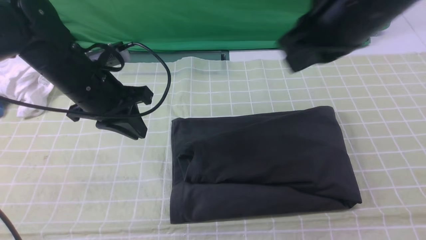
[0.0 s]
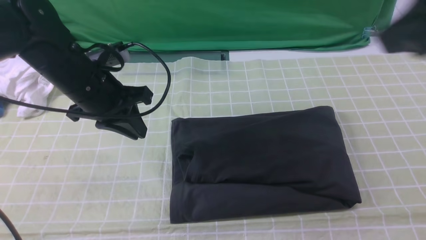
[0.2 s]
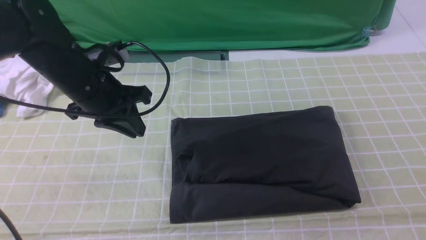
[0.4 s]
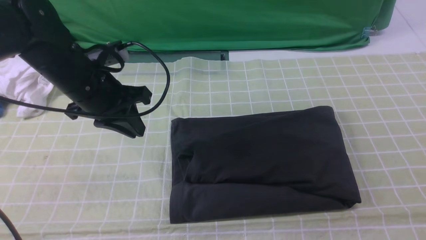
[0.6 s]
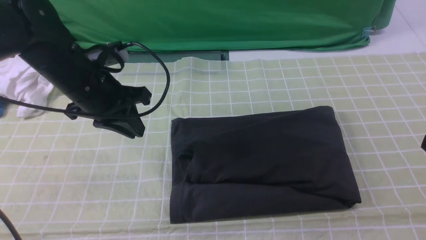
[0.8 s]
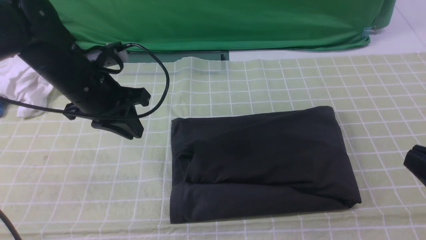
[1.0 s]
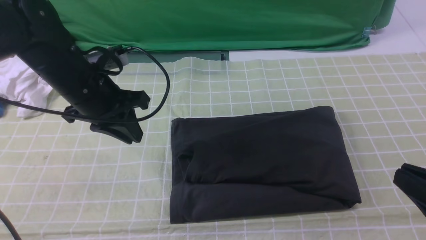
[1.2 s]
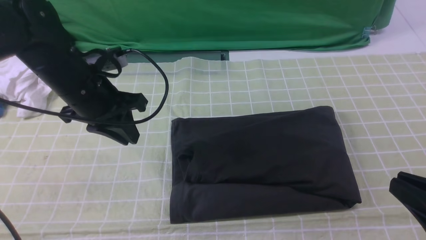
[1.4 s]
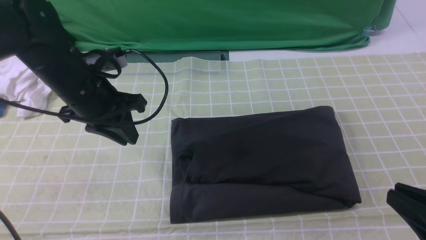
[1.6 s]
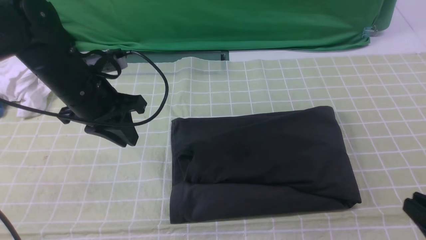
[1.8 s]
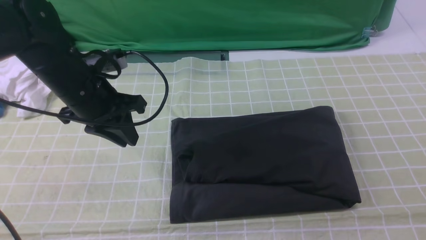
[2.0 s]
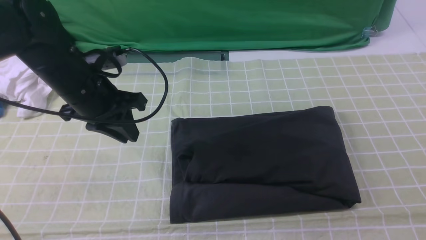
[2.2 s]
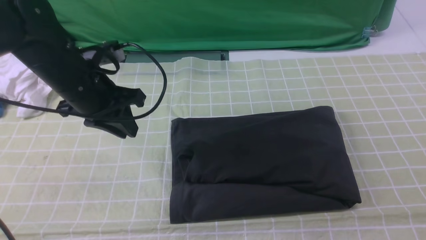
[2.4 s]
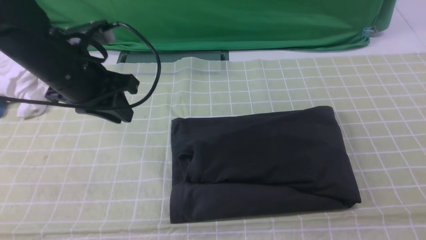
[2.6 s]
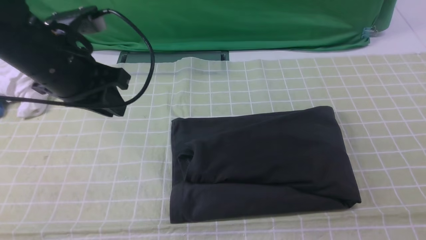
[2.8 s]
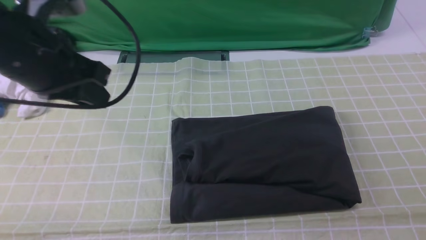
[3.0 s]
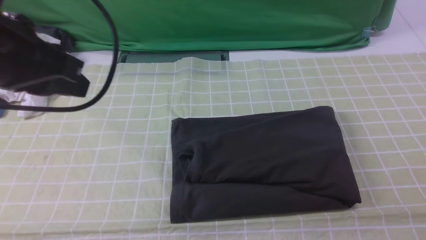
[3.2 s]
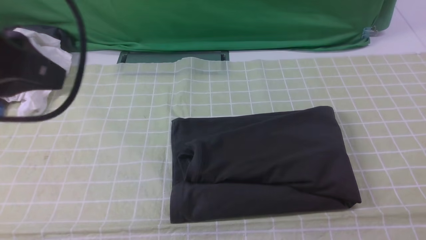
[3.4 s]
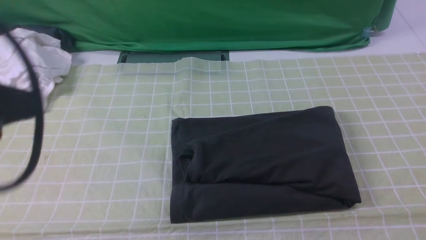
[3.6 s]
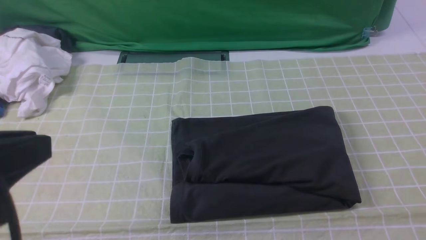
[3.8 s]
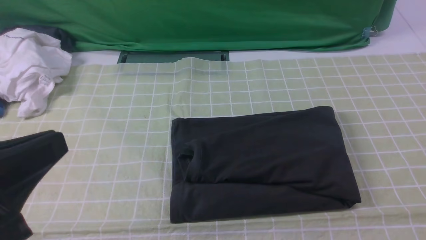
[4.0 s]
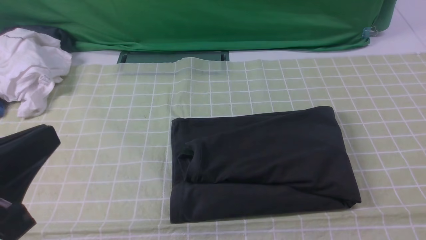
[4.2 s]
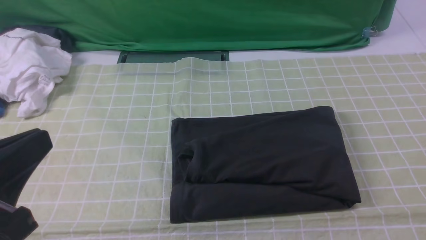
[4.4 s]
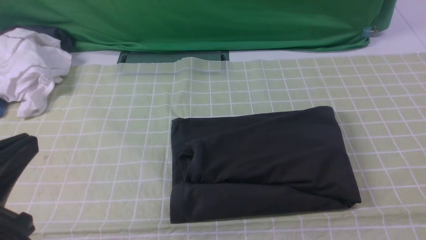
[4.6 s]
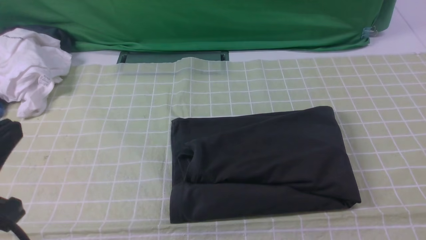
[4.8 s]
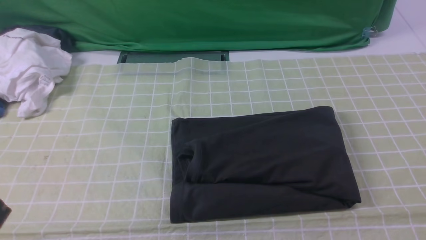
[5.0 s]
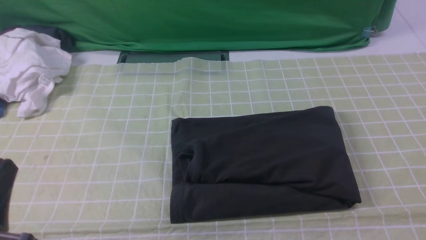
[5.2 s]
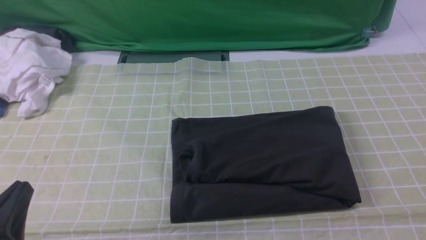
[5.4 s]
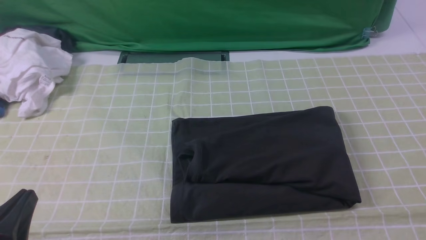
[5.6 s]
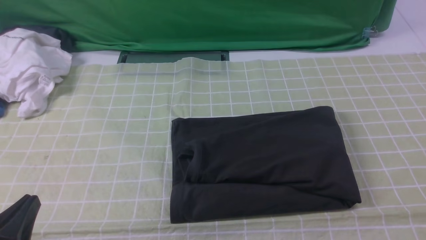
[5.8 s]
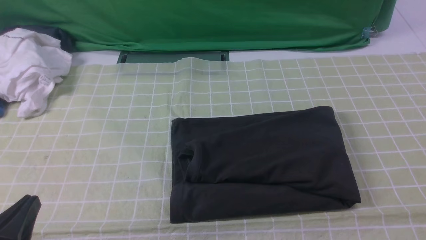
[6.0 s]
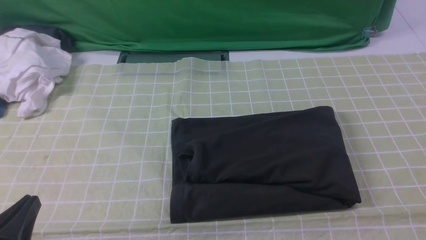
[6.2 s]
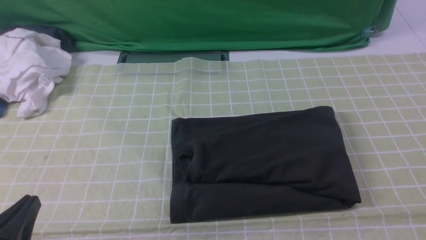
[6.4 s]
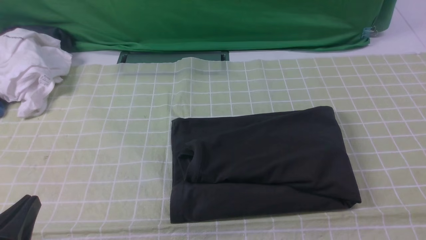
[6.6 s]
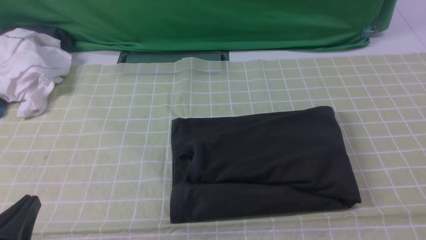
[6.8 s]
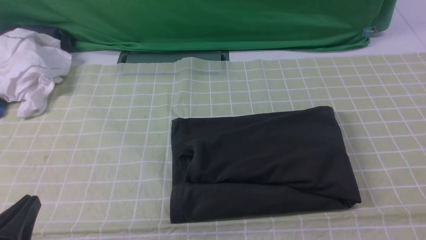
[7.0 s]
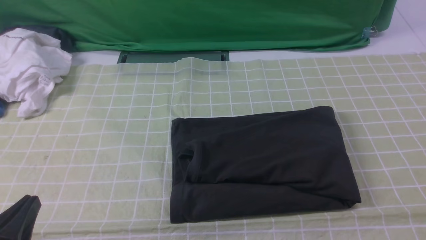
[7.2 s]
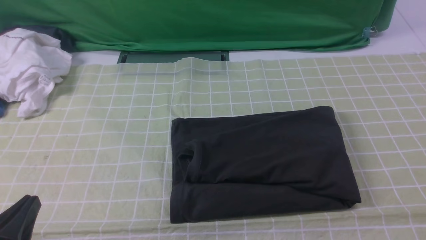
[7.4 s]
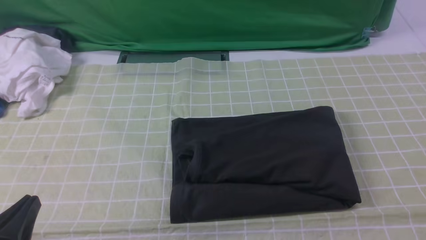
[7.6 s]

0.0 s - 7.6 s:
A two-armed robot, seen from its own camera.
0.0 s - 1.6 s: The right gripper moves downward, backward and to the right, roughly 30 cm.
1.6 s - 3.0 s: The left gripper shifts roughly 15 cm upward and backward; the right gripper shifts by roughly 5 cm.
3.0 s - 4.6 s: The left gripper travels backward by roughly 20 cm.
4.6 s - 6.0 s: The left gripper is displaced downward by some 15 cm.
6.0 s - 7.6 s: Both grippers stay about where they are.
